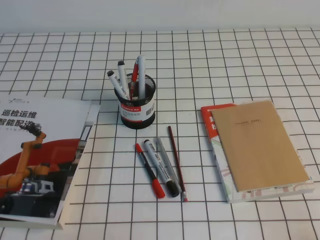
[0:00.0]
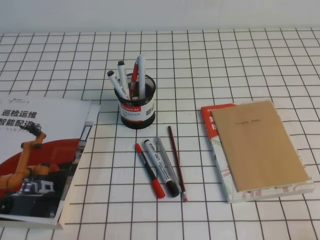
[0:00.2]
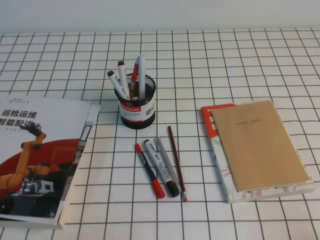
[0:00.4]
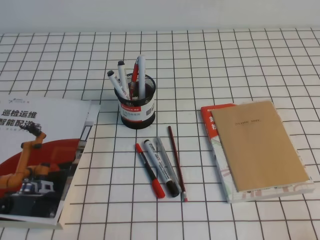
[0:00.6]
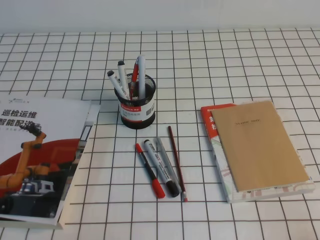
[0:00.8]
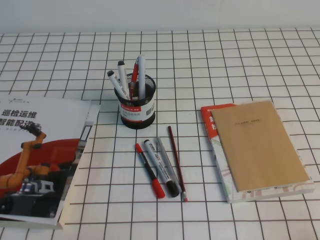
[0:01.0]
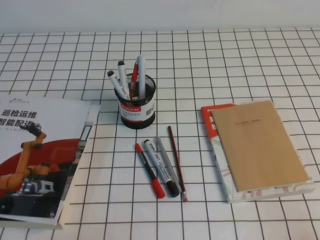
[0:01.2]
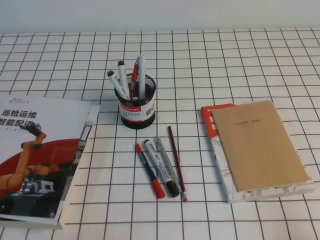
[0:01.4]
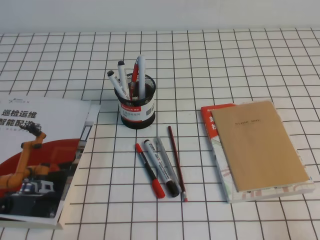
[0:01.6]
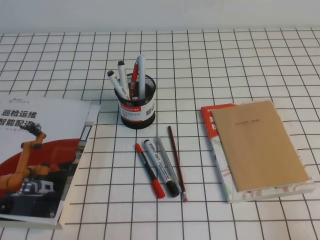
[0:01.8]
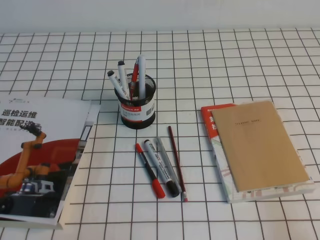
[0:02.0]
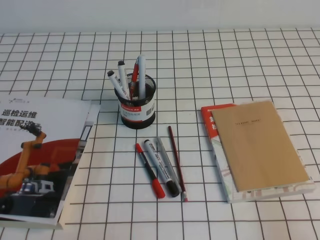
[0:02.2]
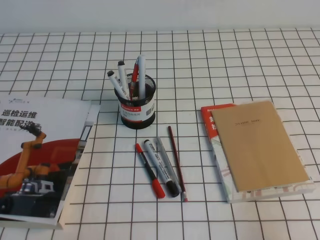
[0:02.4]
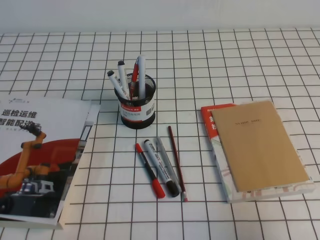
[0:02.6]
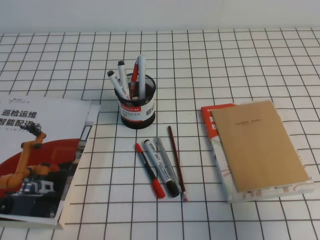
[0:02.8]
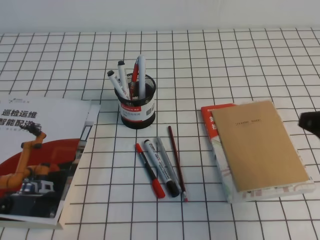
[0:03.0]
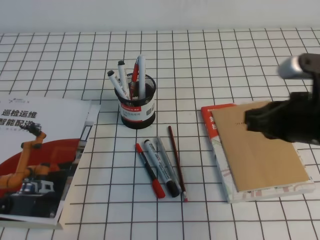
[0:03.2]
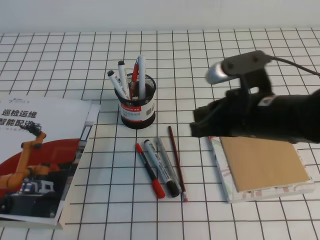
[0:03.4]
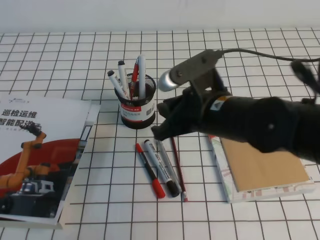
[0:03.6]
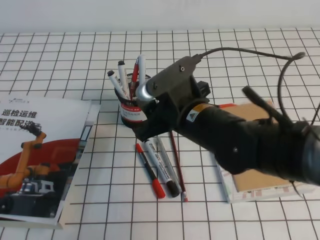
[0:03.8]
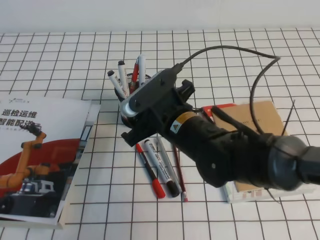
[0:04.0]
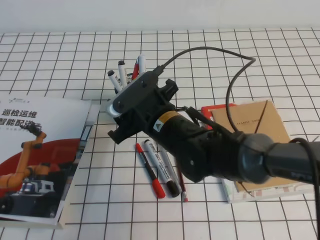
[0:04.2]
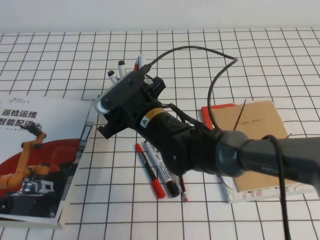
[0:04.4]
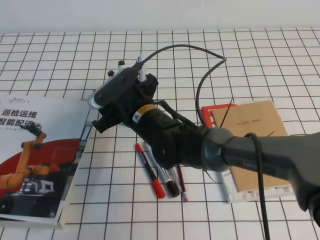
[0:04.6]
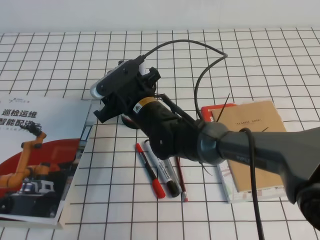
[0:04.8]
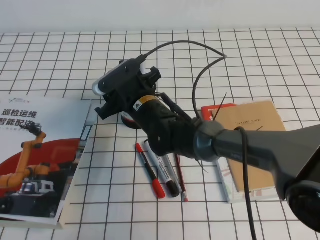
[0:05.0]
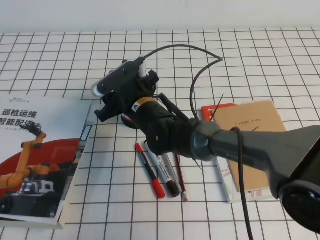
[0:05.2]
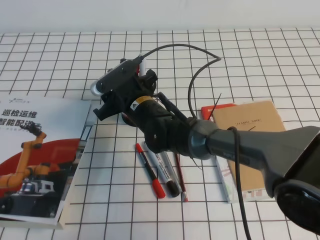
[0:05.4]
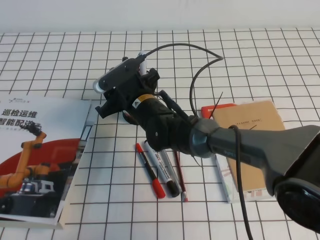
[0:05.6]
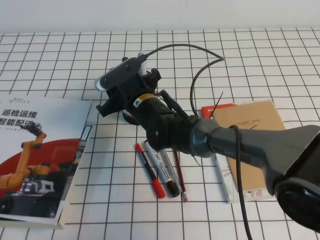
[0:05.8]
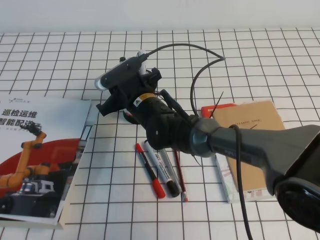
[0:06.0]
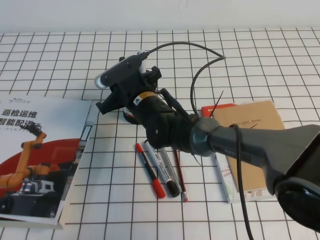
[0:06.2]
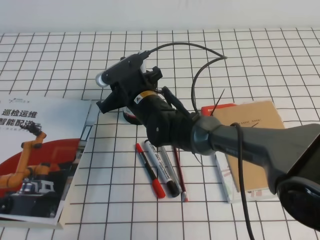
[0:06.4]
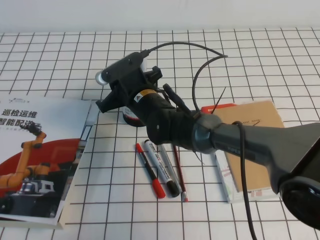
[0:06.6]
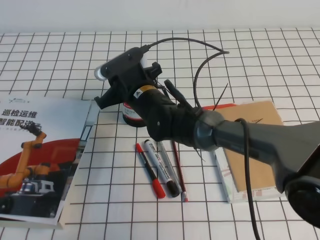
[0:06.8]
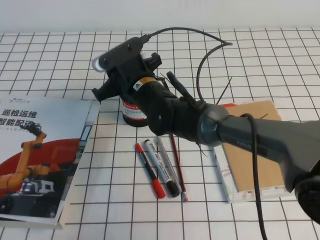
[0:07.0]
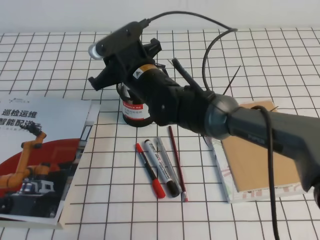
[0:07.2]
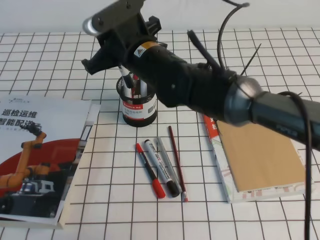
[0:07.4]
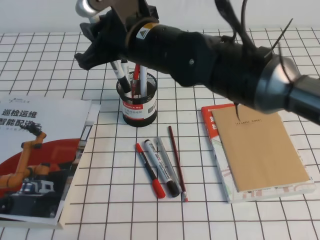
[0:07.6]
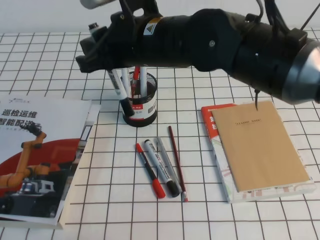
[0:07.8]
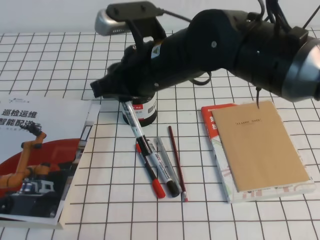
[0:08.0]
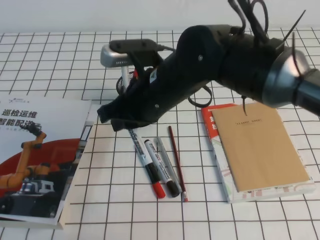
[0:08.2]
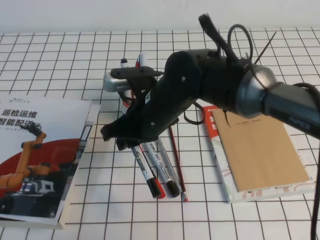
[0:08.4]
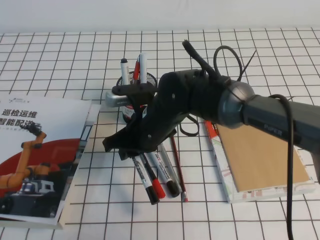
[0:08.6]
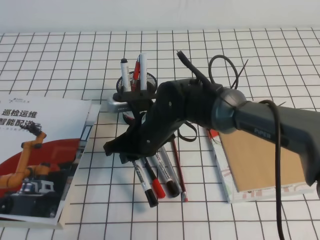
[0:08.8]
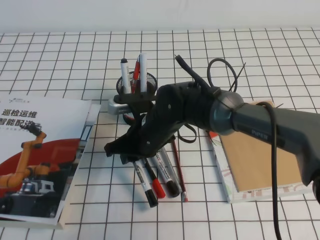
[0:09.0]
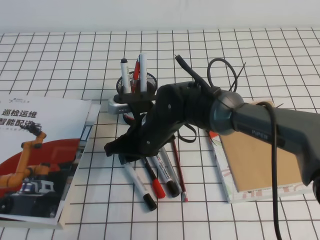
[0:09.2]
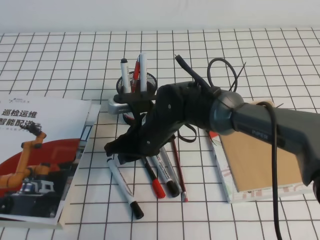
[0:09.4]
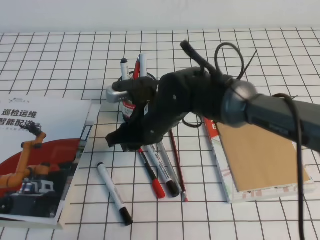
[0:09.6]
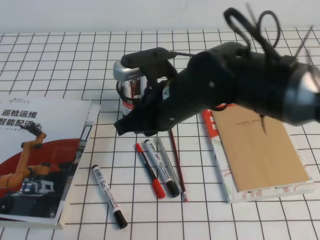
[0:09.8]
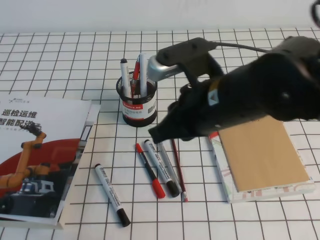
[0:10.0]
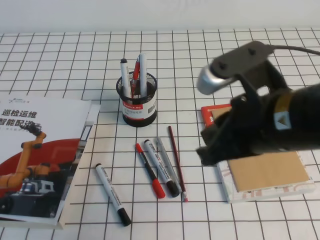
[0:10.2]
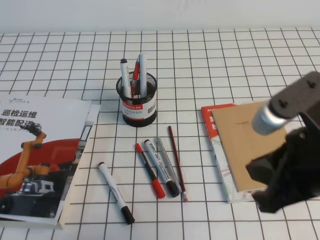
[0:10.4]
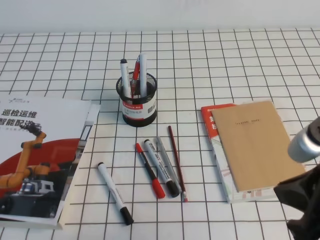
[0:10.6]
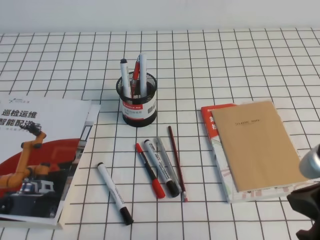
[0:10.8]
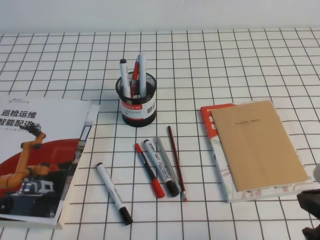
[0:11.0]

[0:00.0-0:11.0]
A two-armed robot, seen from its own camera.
0:01.6 to 0:03.2: The right gripper moves forward, to the left and upward, roughly 25 cm.
0:03.2 to 0:04.8: The right gripper shifts about 30 cm to the left and forward, and opens up.
0:04.8 to 0:06.2: The right gripper closes.
0:06.2 to 0:07.8: The right gripper travels upward and backward by about 20 cm.
0:07.8 to 0:09.4: The right gripper heads downward, covering some 15 cm.
0:09.4 to 0:11.0: The right gripper shifts some 35 cm to the right and backward, and closes up.

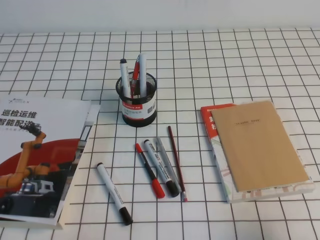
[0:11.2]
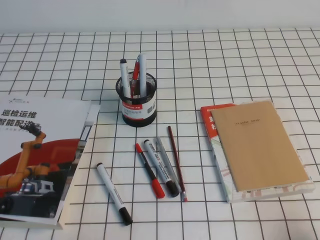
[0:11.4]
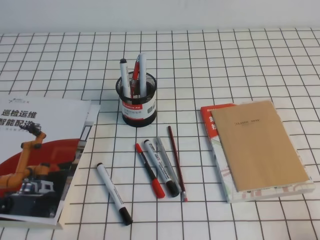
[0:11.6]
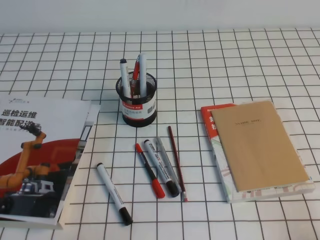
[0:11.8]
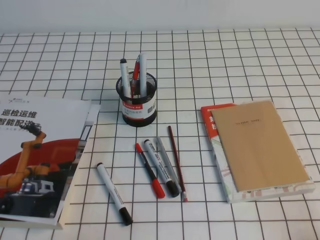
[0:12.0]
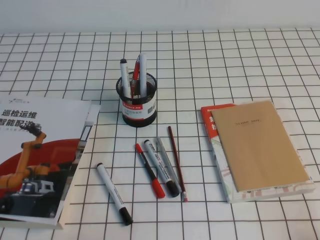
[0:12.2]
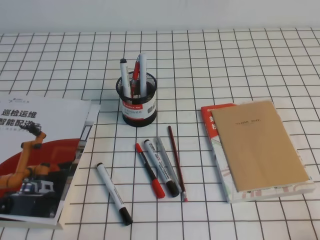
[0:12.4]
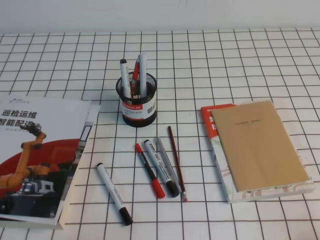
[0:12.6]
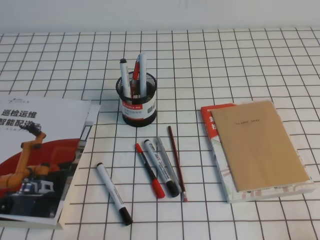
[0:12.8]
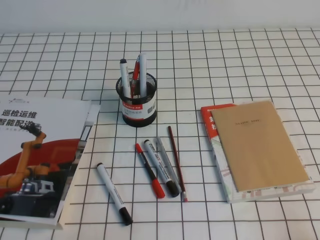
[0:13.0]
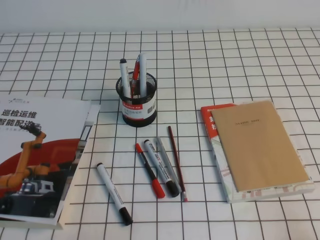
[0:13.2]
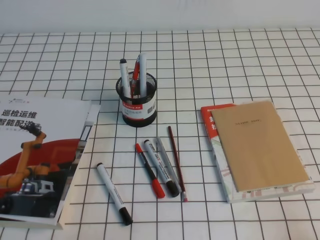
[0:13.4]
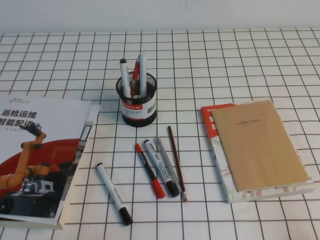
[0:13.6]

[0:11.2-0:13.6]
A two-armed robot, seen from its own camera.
Step, 0:11.2 to 0:13.6: Pick up the pen from the pen holder.
0:11.2 to 0:12.4: The right gripper shifts roughly 10 cm downward, backward and to the right.

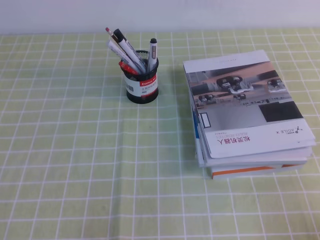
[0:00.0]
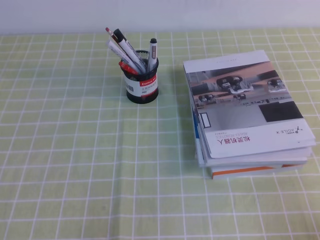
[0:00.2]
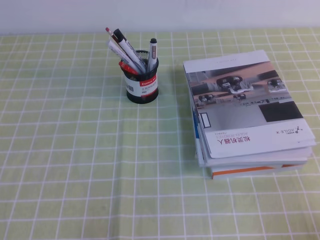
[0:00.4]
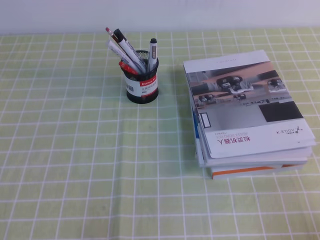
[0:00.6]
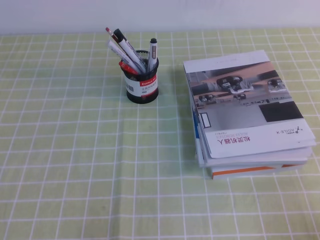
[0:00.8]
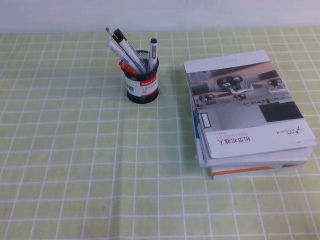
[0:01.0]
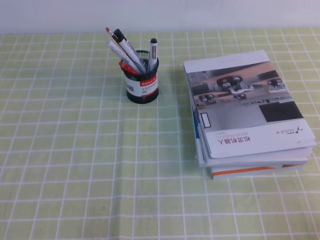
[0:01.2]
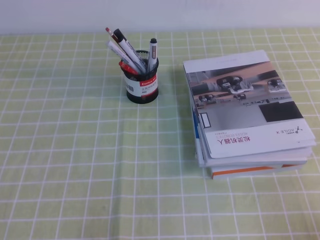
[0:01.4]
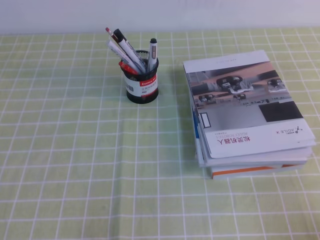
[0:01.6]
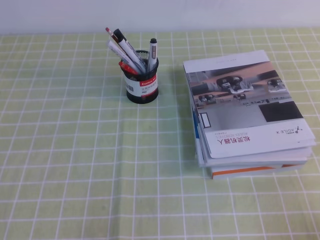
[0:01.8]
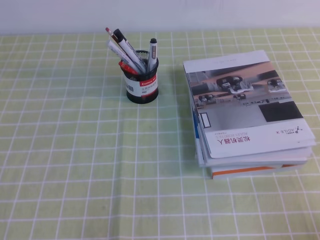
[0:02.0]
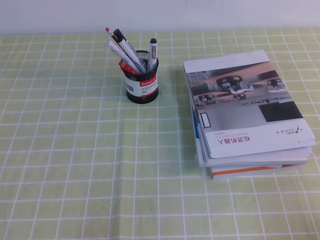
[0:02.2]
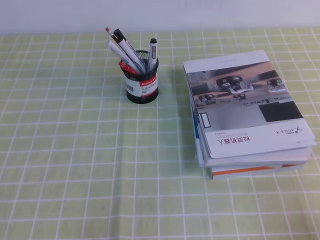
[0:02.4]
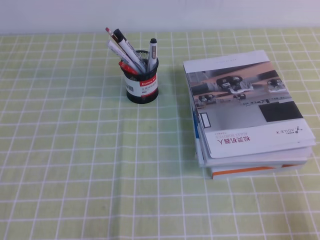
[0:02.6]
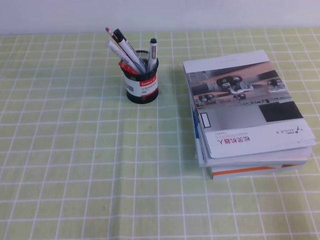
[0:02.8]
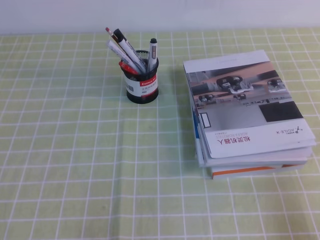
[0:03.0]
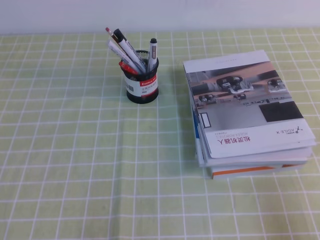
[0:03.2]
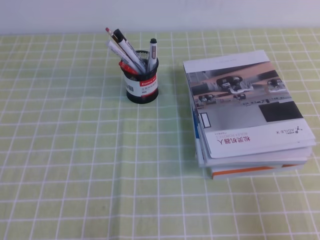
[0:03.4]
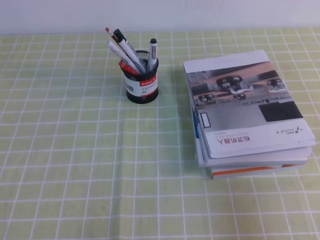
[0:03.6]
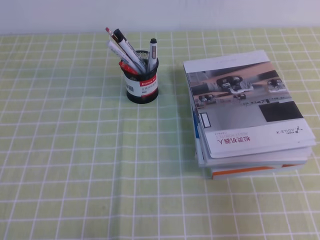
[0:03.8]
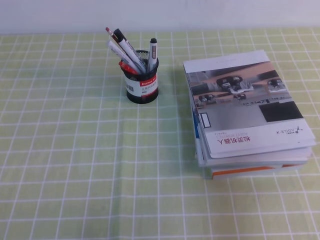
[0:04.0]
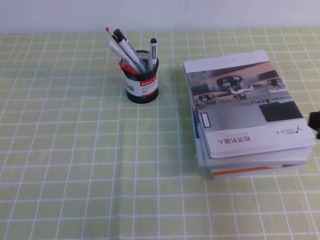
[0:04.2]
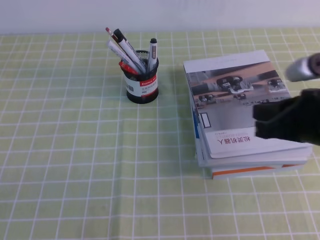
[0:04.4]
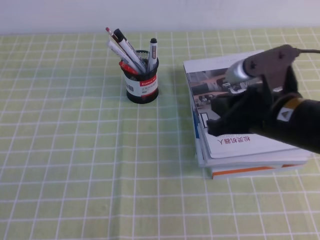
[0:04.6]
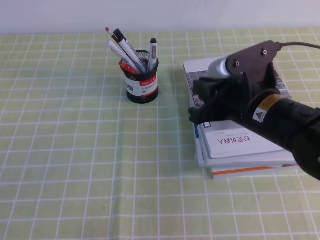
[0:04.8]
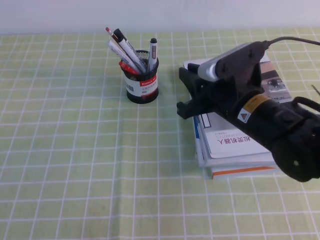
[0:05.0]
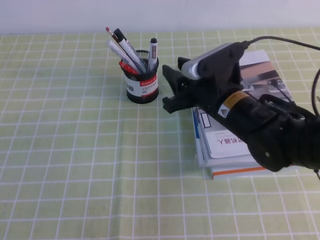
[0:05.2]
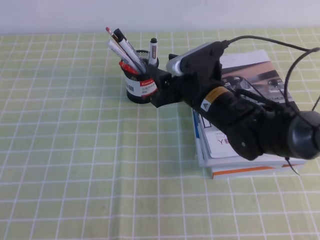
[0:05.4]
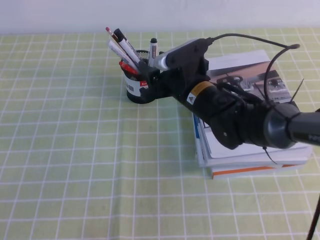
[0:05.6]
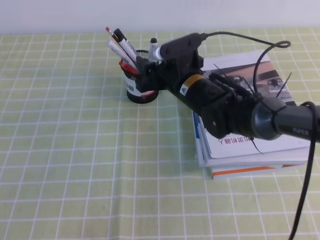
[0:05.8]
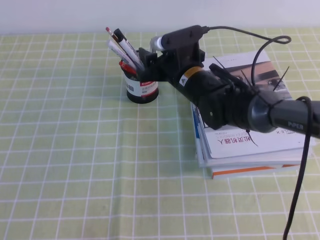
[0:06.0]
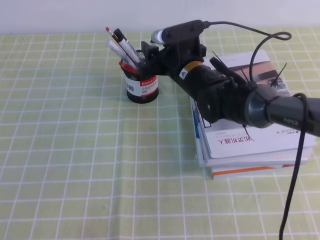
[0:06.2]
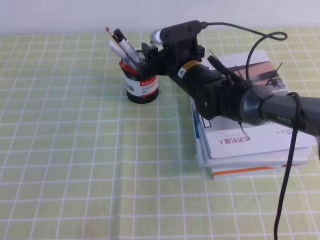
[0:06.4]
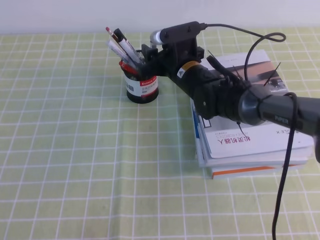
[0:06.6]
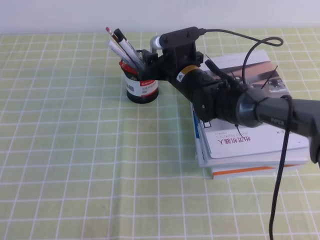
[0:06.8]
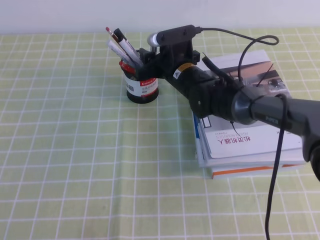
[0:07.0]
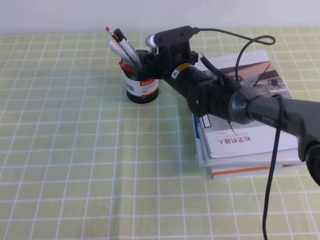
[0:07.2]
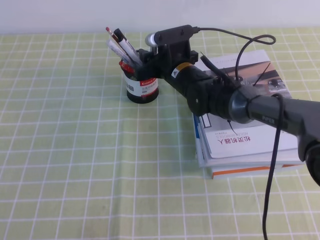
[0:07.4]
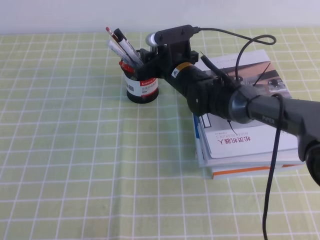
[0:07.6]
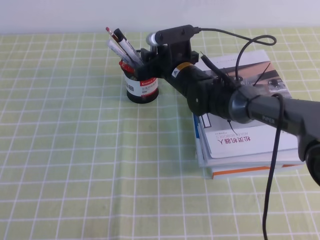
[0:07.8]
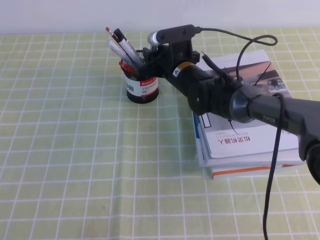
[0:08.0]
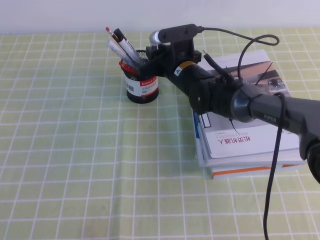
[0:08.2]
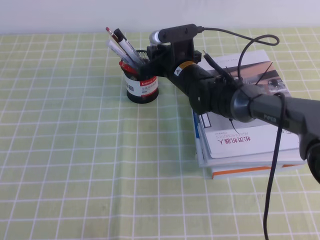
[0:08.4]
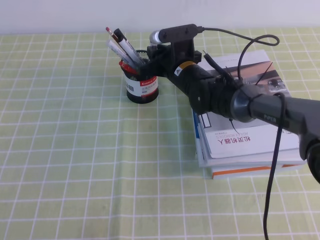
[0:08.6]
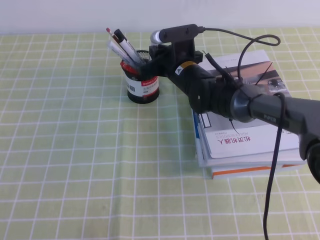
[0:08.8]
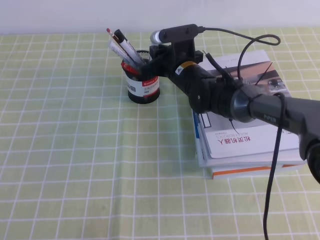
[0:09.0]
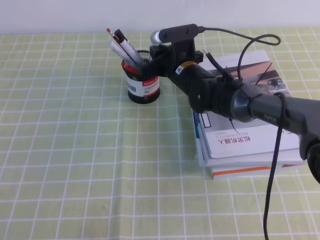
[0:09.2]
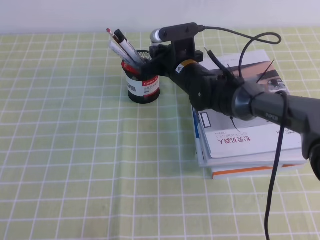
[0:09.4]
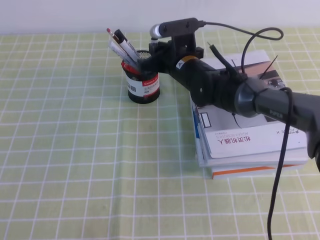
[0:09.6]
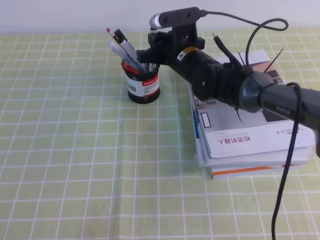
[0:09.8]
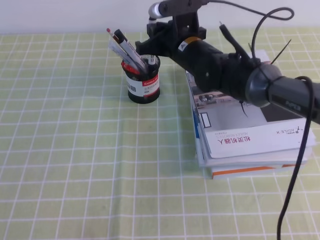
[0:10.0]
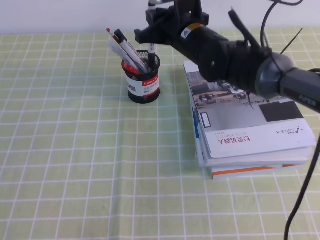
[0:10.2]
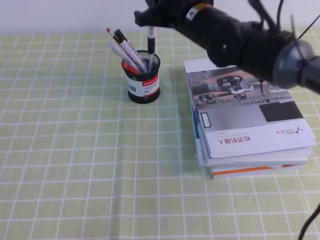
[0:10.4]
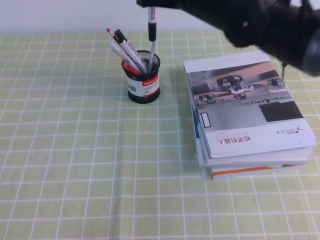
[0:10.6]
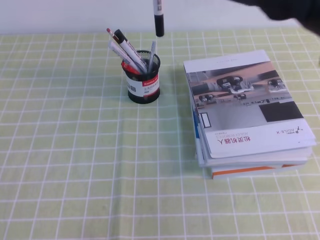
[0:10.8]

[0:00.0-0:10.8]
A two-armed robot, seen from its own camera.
0:00.0 to 0:01.6: Both grippers stay put.
0:03.0 to 0:04.6: The right gripper travels forward, to the left and upward by some 25 cm.
0:04.6 to 0:06.2: The right gripper travels forward and to the left by about 20 cm, and opens.
0:06.2 to 0:07.8: There are only small adjustments of the grippers.
0:07.8 to 0:09.2: The right gripper closes up.
0:09.2 to 0:10.8: The right gripper is displaced upward and backward by some 25 cm.
